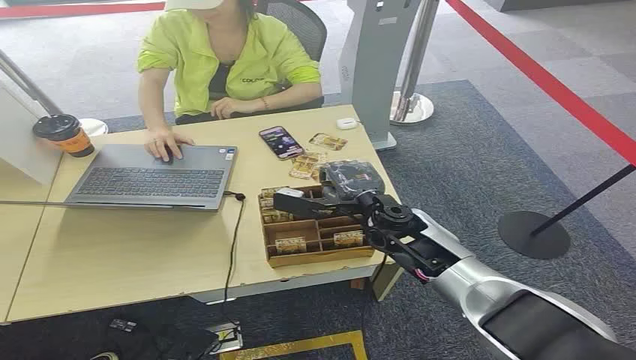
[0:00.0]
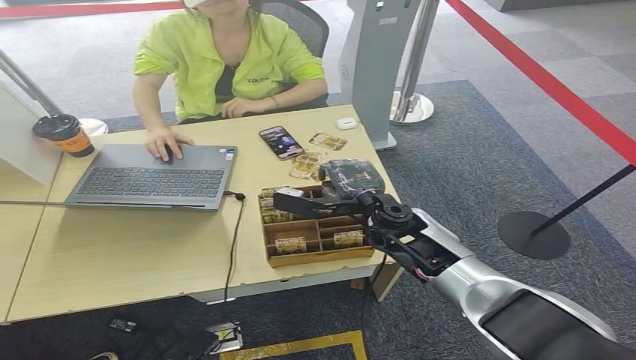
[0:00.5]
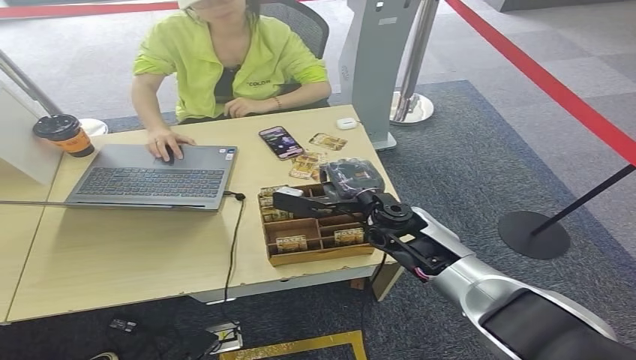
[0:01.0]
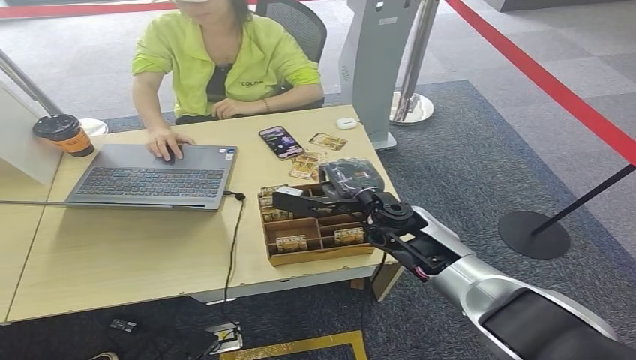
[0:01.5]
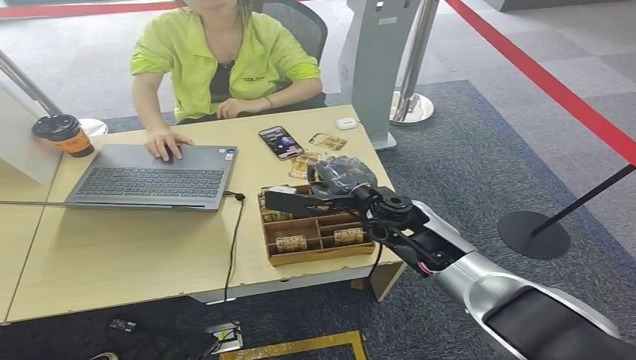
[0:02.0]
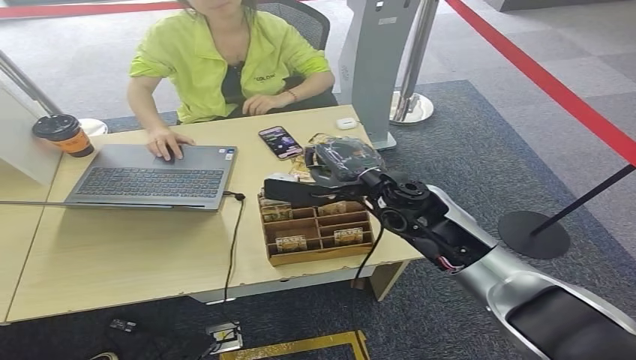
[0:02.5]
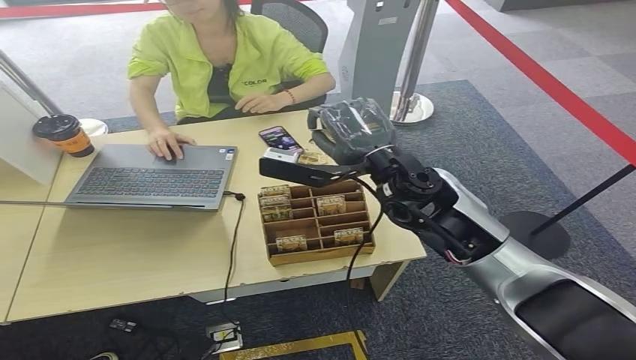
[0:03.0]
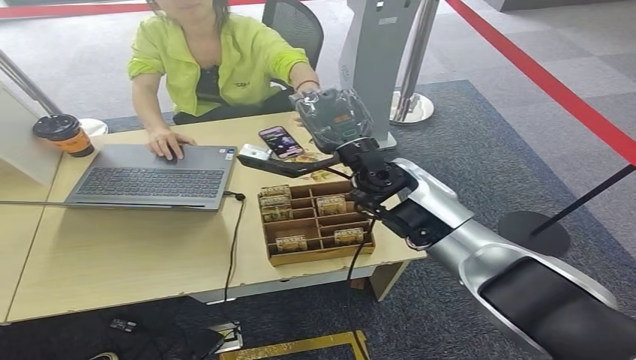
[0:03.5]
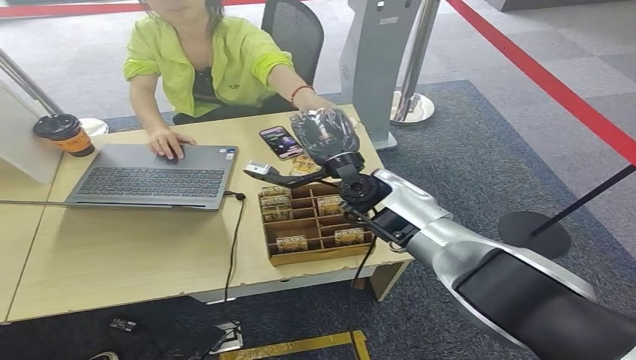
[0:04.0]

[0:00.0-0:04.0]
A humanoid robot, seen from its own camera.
Step, 0:00.0 to 0:02.0: Pick up the room card from the card holder.
Step, 0:02.5 to 0:04.0: Hand the room card to the target.

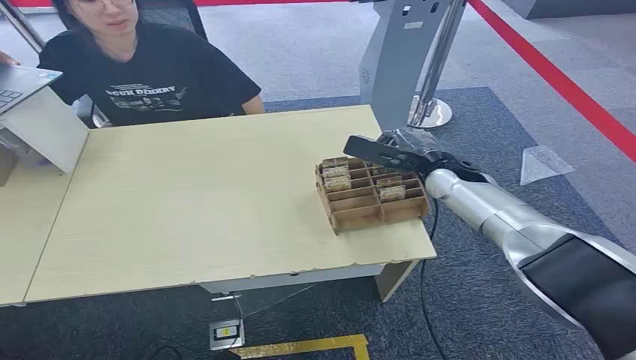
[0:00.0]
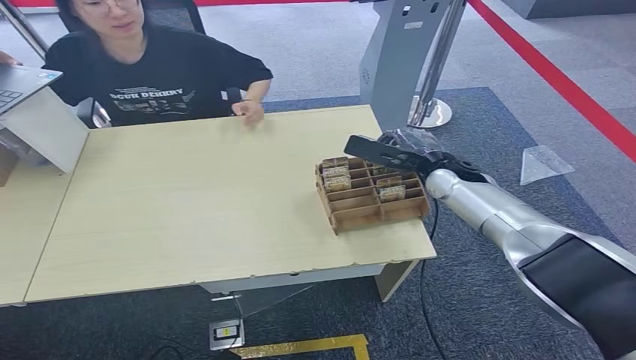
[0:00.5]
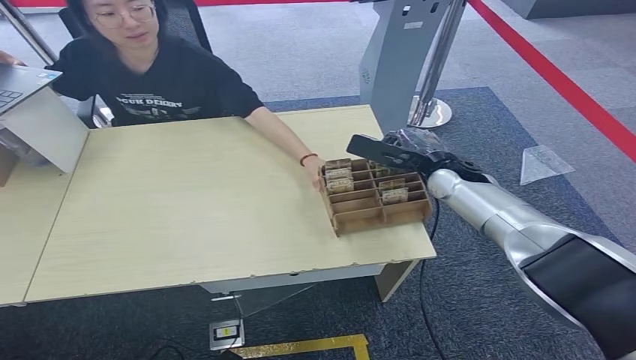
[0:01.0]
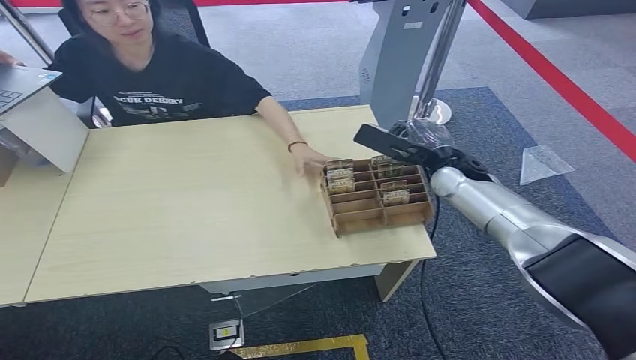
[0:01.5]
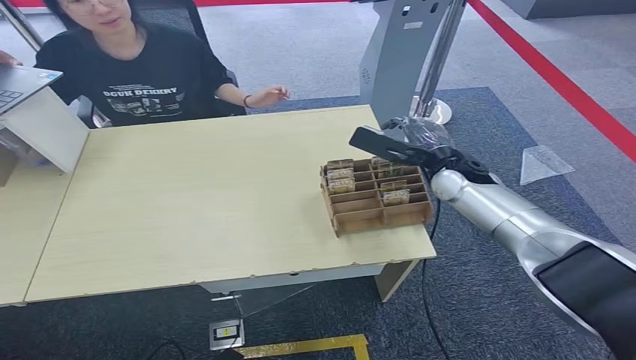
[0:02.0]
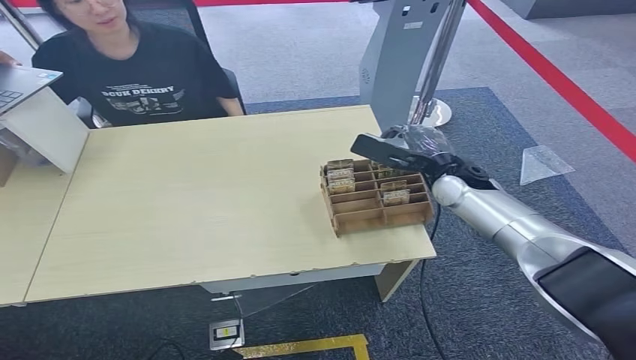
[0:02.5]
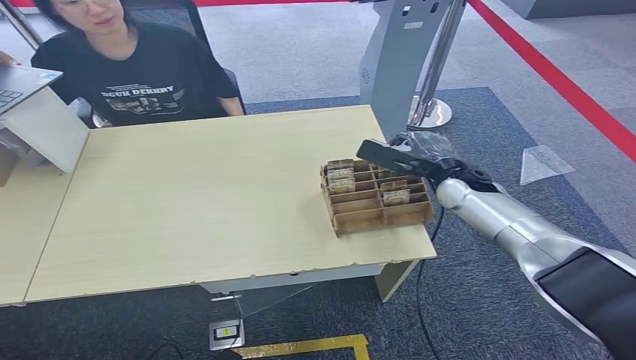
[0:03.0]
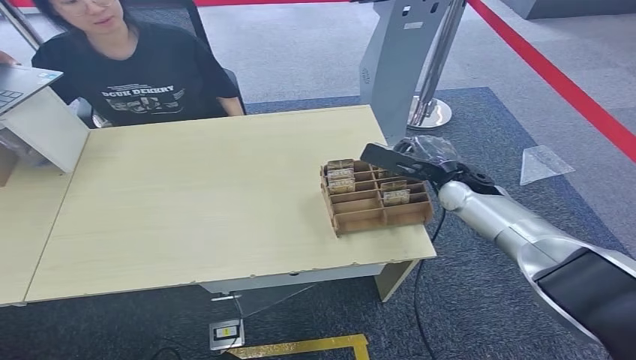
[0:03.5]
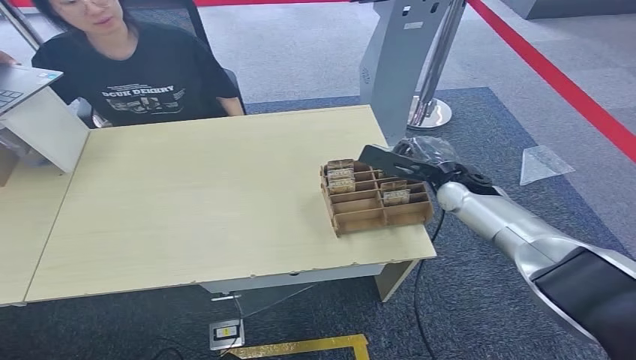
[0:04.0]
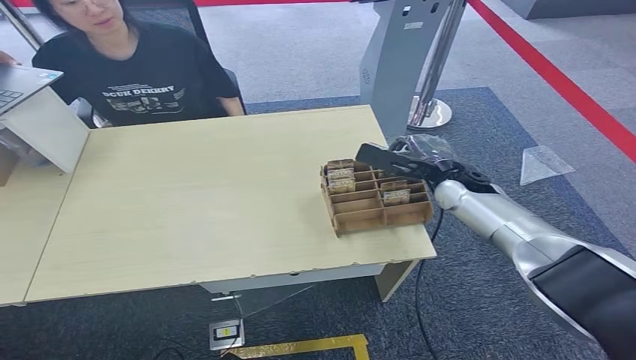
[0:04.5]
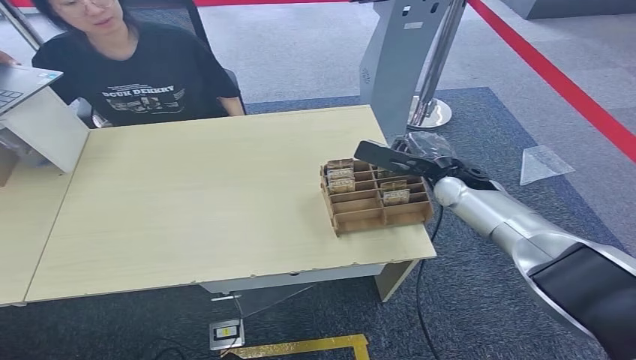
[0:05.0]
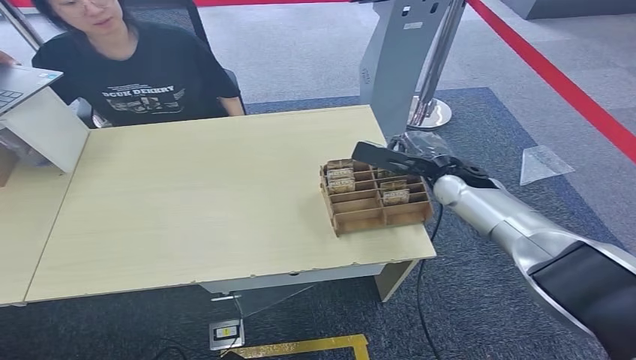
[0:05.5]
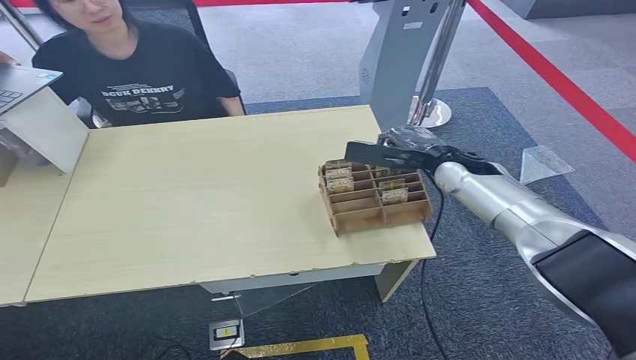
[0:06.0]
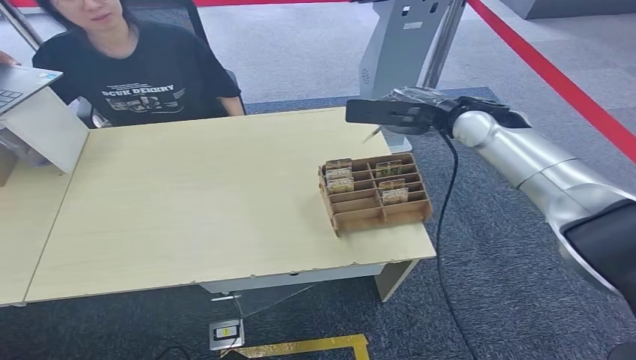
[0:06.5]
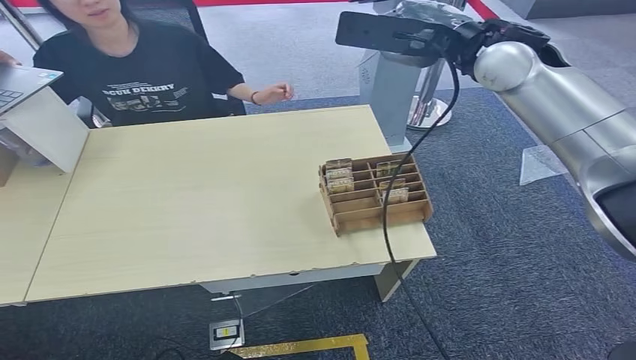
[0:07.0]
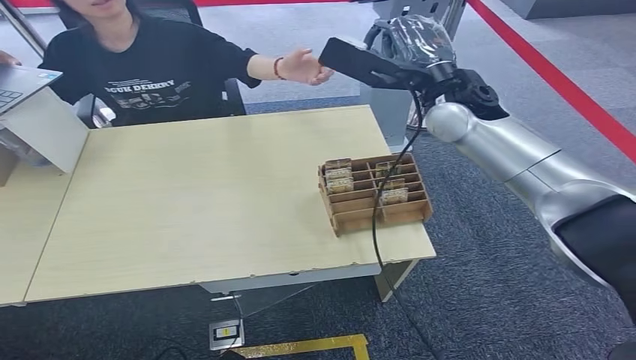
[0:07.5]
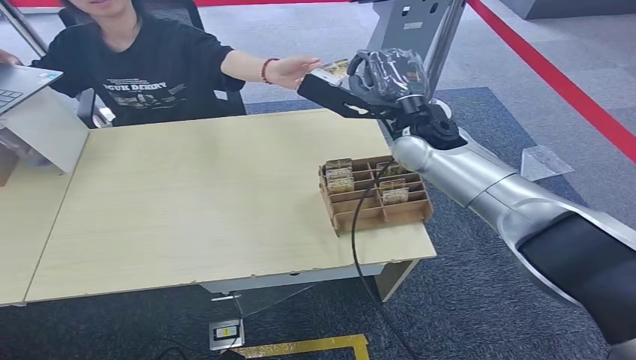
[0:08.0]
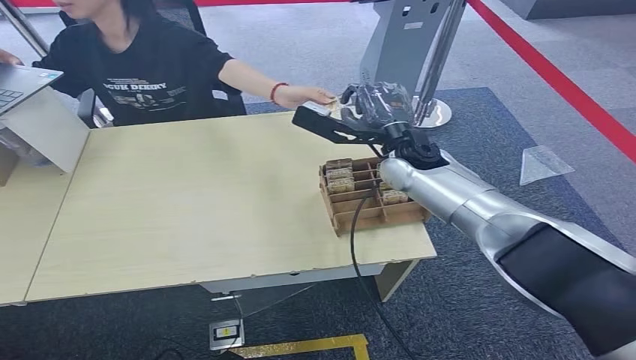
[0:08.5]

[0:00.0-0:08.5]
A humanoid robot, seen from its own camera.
Step, 0:00.0 to 0:06.5: Pick up the room card from the card holder.
Step, 0:07.0 to 0:08.5: Hand the room card to the target.
0:02.0 to 0:04.0: The hands make only small movements.
0:04.0 to 0:06.5: The right hand heads upward, covering some 15 cm.
0:06.5 to 0:08.5: The right hand goes some 10 cm to the left, and moves roughly 15 cm upward and comes back.
